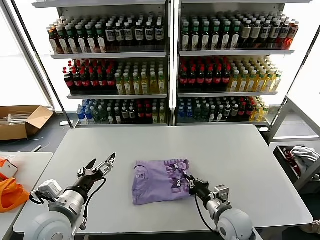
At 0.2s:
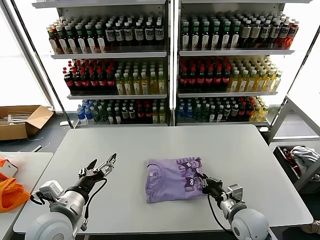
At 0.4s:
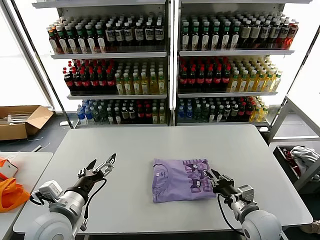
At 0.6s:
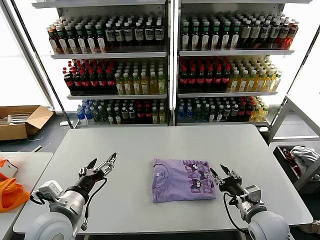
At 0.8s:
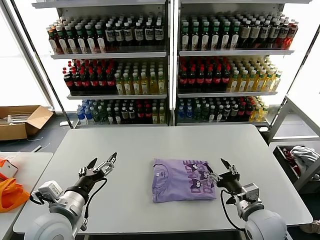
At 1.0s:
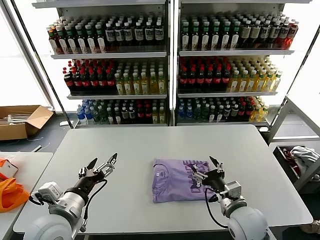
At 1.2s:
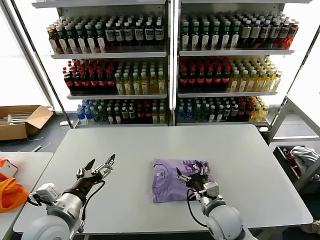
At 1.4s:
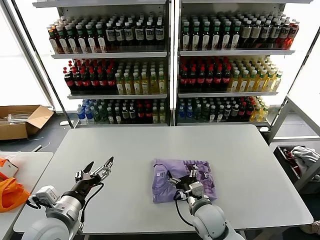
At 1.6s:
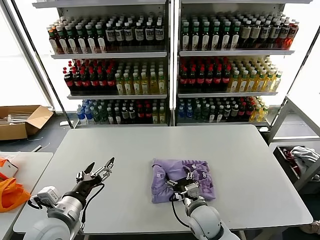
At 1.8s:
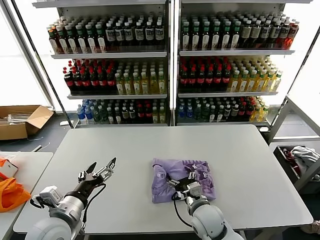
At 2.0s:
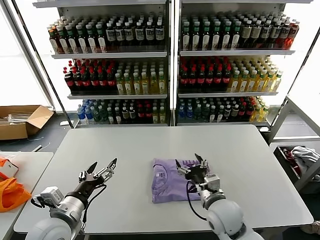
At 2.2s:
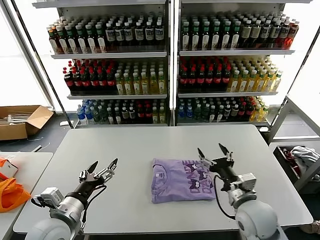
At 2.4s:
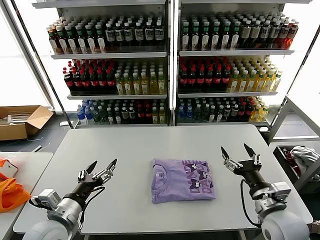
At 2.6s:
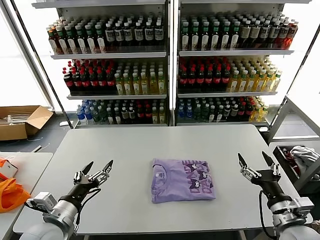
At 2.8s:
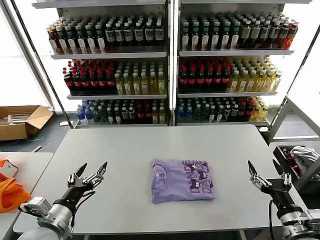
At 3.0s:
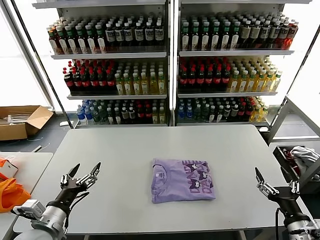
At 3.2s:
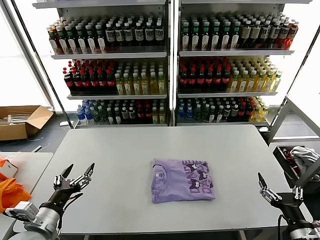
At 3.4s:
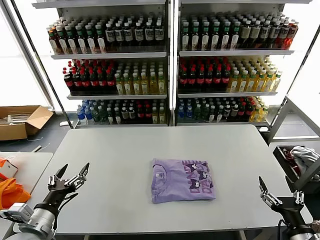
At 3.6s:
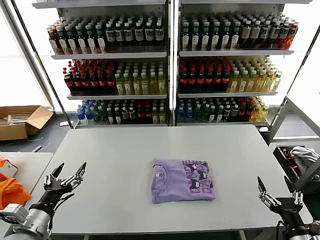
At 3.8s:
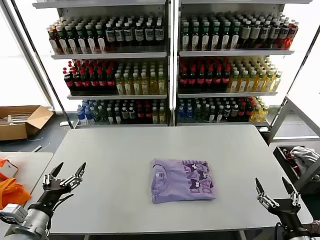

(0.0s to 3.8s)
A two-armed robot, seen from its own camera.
Task of the whole recording: fold and organize the clothes.
0.0s - 1.2s: The right gripper moves approximately 10 cm to the right and comes back, and opens up.
1.2s - 2.6s: The right gripper heads to the right, backward and upward, covering about 15 cm.
2.6s - 3.8s: The left gripper travels to the left by approximately 5 cm, while the right gripper is displaced backward by about 10 cm.
